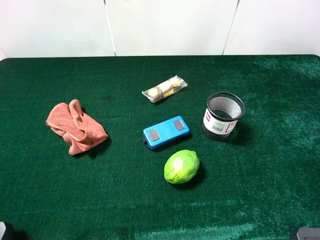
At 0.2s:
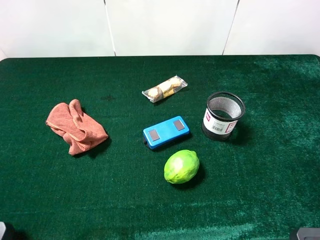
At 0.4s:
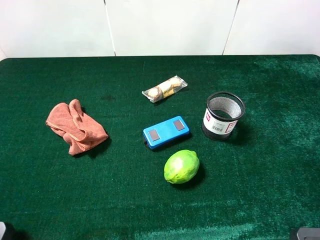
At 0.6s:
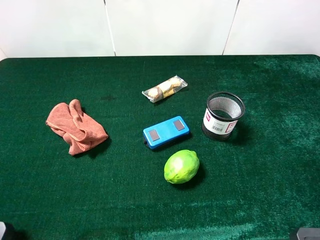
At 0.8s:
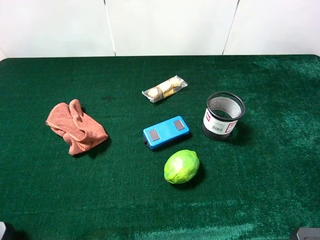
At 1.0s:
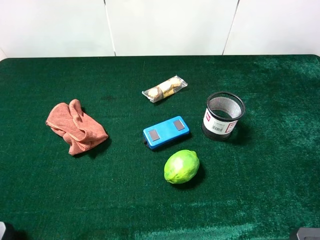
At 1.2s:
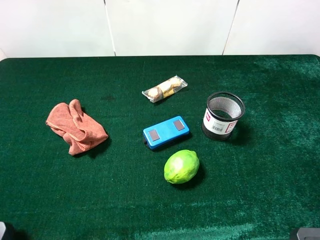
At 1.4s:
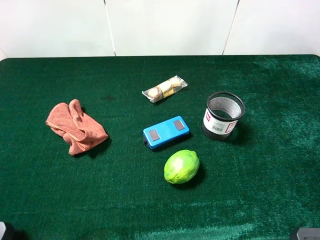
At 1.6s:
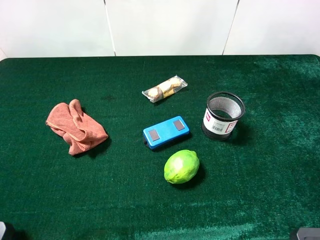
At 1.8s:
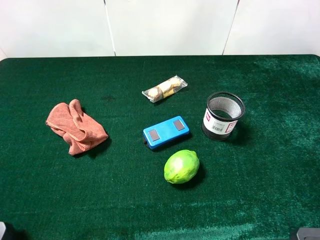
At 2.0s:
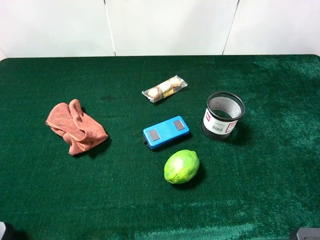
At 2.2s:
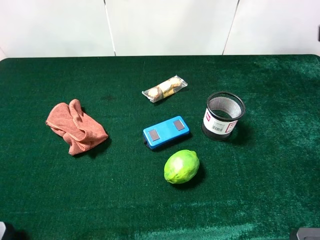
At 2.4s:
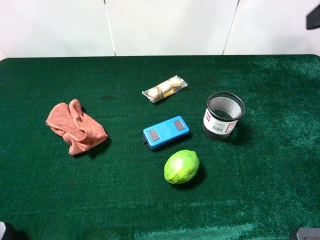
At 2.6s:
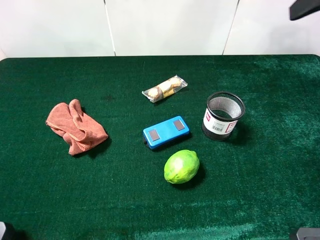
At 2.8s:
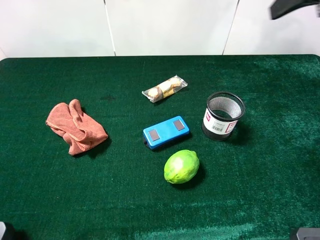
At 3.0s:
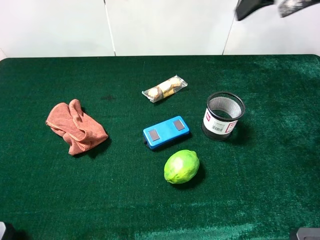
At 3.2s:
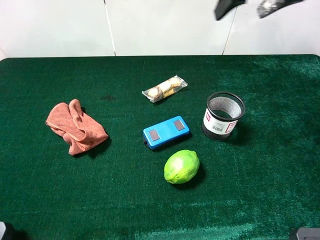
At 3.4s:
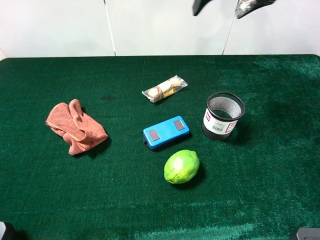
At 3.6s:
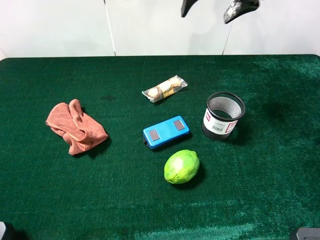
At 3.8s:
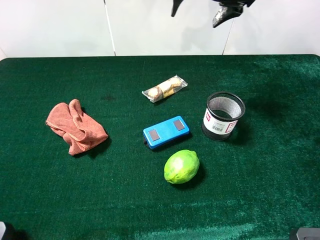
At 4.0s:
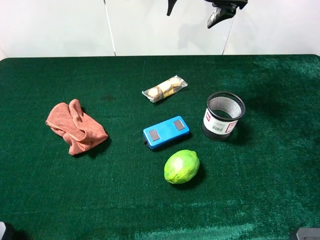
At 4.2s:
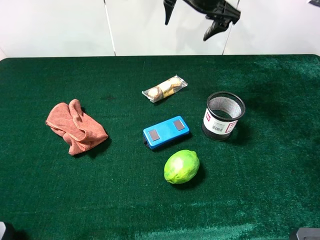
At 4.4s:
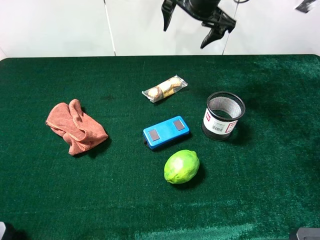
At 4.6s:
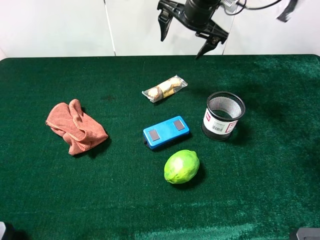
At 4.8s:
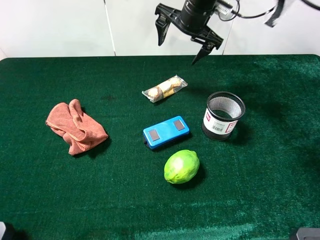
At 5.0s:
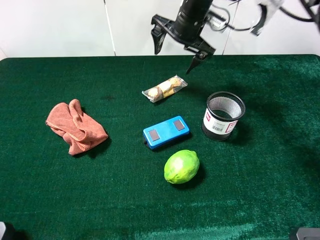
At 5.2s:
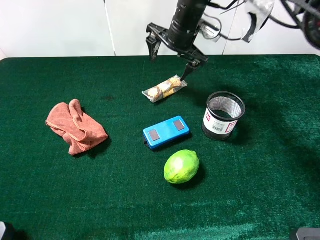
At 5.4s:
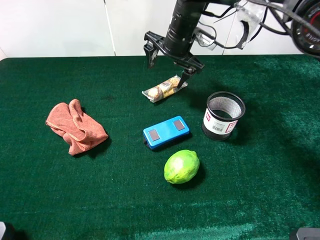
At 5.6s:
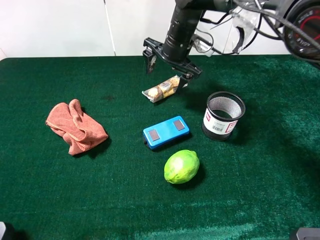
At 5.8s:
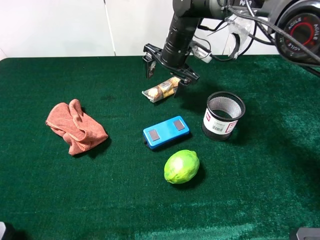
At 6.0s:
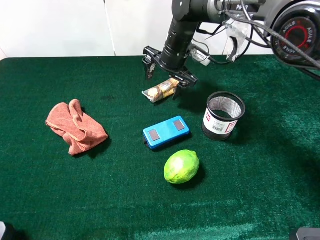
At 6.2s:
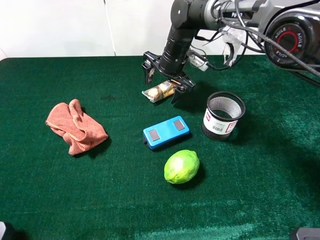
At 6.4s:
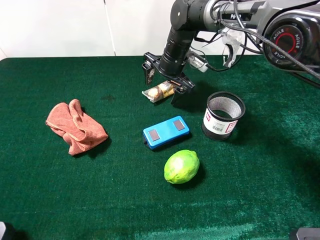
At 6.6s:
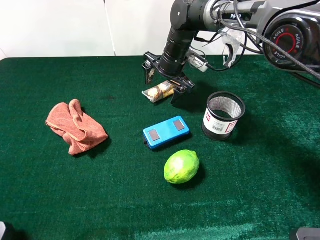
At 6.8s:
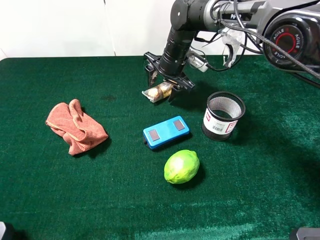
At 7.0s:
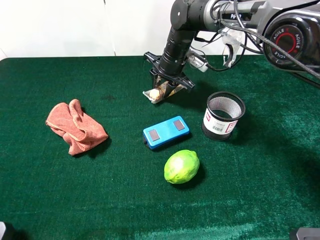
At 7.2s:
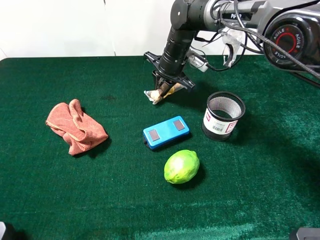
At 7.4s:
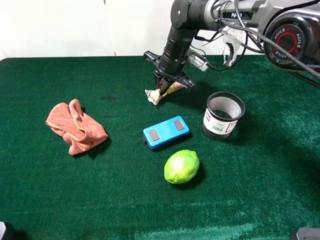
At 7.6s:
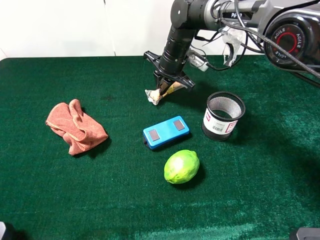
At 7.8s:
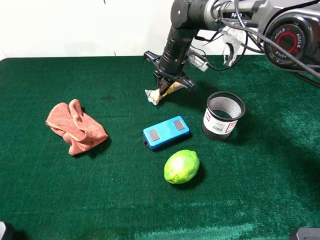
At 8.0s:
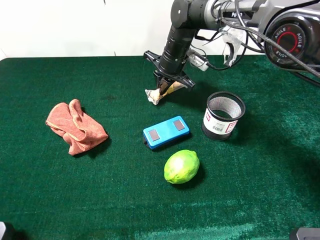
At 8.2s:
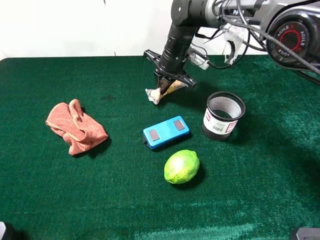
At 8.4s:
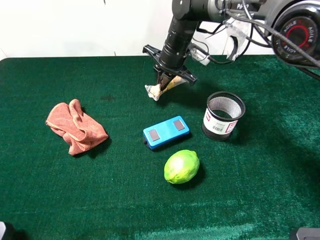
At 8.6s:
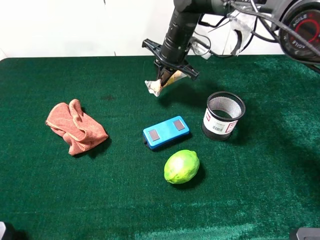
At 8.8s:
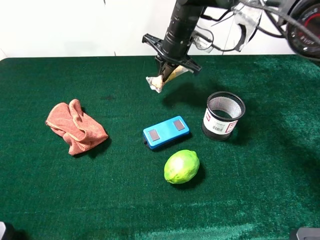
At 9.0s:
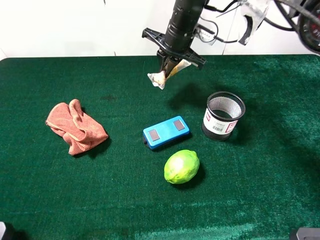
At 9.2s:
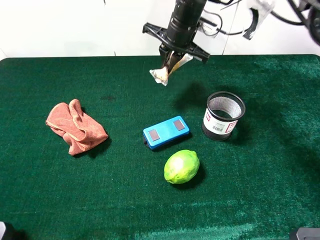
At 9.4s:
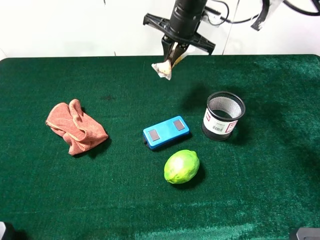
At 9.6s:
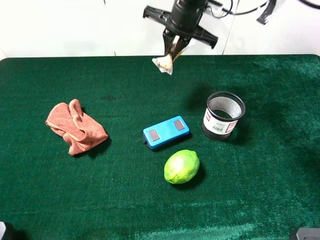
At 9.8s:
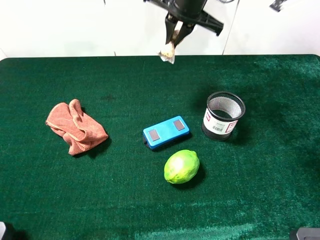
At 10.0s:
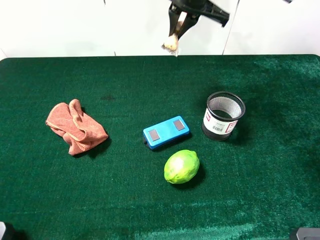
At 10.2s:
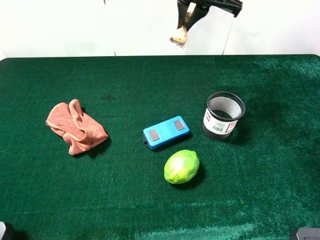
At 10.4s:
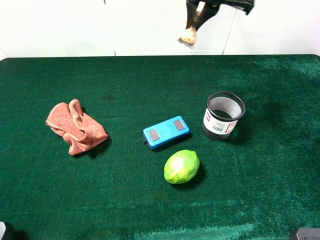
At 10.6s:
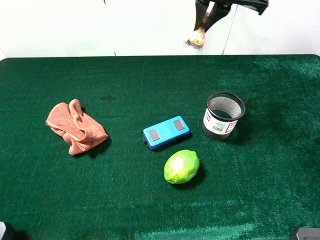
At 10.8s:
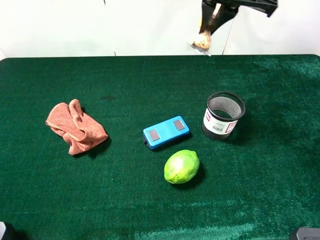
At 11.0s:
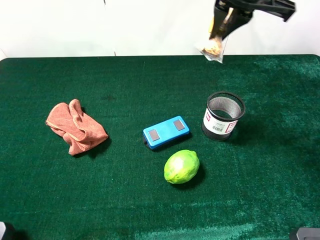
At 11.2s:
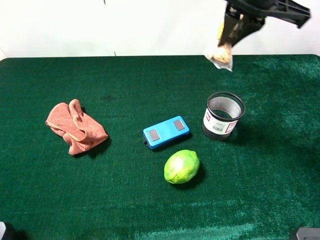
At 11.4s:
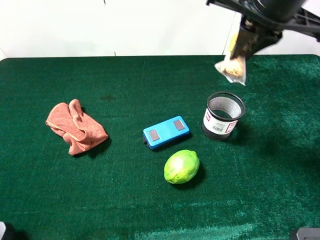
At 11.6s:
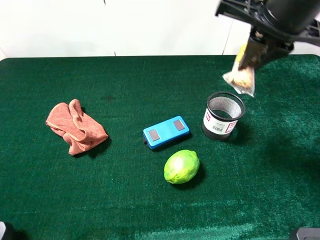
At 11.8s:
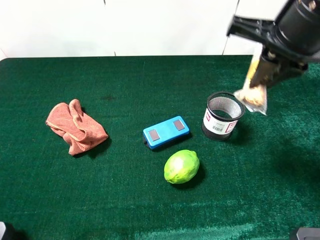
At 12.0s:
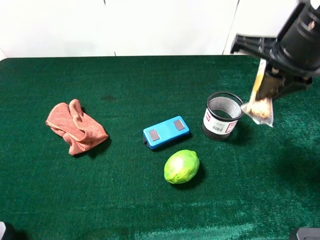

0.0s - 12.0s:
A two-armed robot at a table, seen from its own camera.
Task of the whole recording: the gripper move the object.
Step, 0.0s - 7.6s: Grasp the chocolate with the right gripper.
1.6s - 3.0s: The right gripper moves forward and to the left, roughly 25 cm.
3.0s - 4.4s: The right gripper heads to the left, forward and downward, covering some 20 cm.
4.4s - 6.0s: The right gripper goes about 15 cm downward.
6.0s - 7.6s: The right gripper closes.
7.6s - 9.0s: The right gripper shifts roughly 10 cm upward.
9.0s - 10.4s: The right gripper shifts roughly 15 cm upward.
10.4s - 12.0s: The right gripper goes about 15 cm backward and to the right.

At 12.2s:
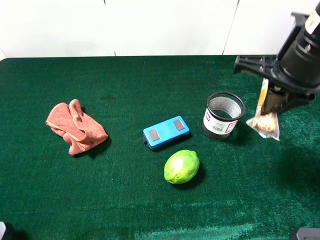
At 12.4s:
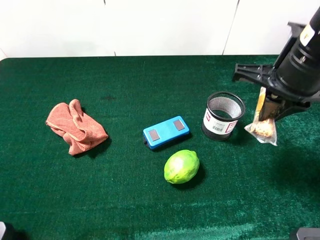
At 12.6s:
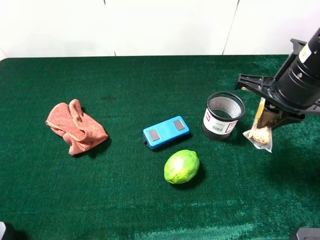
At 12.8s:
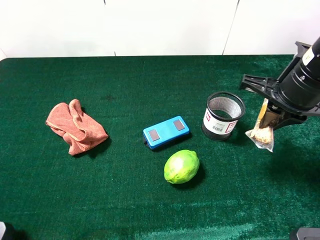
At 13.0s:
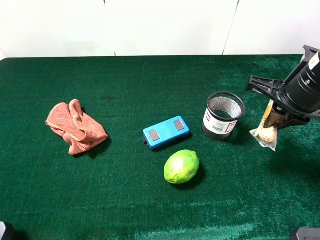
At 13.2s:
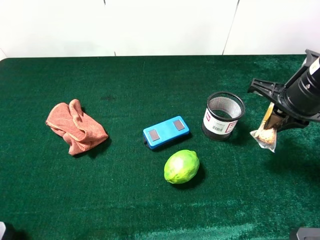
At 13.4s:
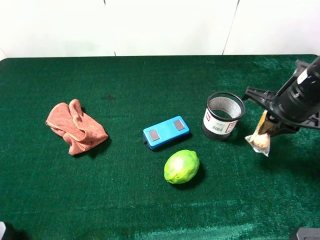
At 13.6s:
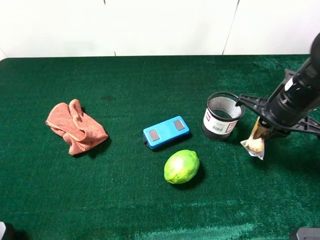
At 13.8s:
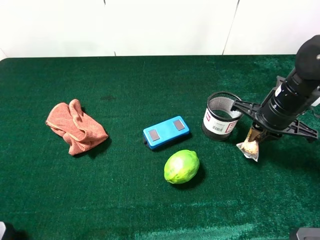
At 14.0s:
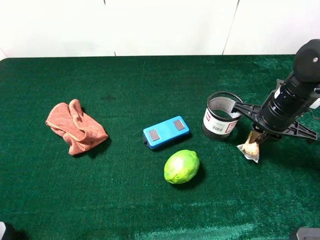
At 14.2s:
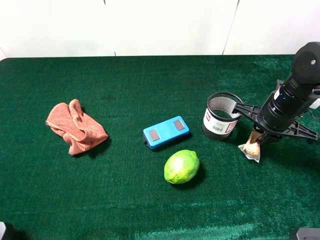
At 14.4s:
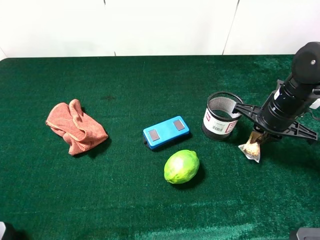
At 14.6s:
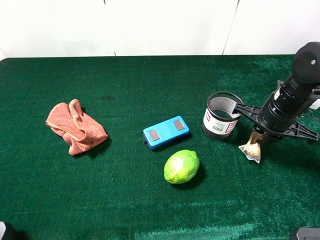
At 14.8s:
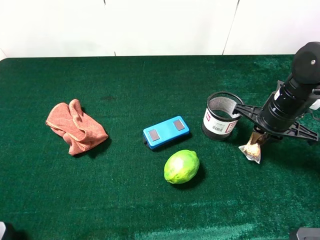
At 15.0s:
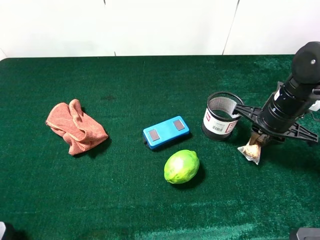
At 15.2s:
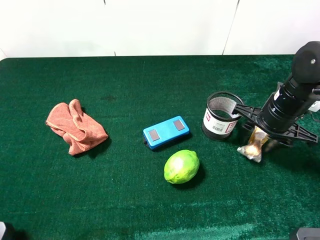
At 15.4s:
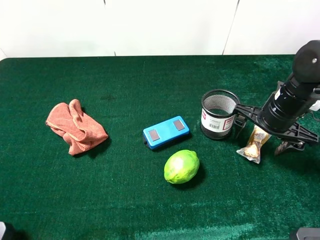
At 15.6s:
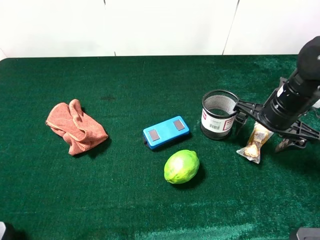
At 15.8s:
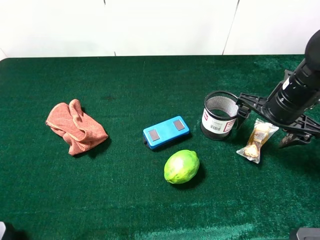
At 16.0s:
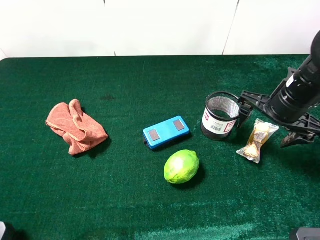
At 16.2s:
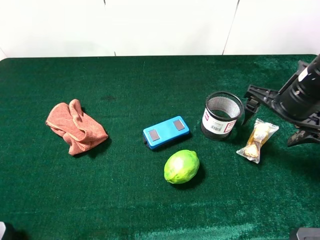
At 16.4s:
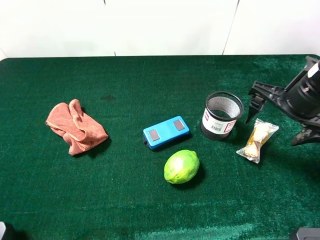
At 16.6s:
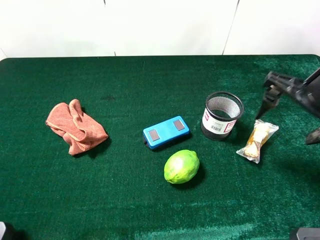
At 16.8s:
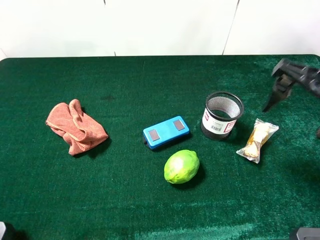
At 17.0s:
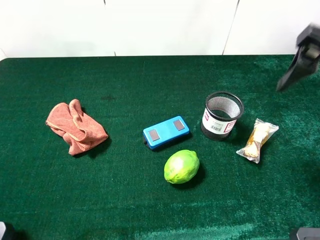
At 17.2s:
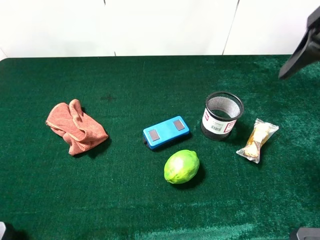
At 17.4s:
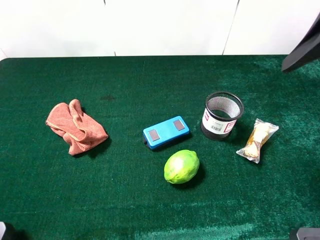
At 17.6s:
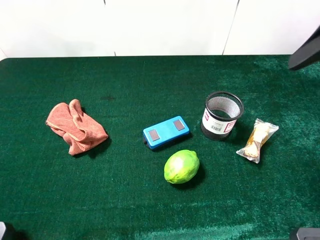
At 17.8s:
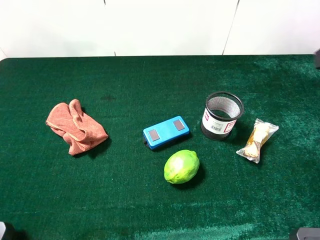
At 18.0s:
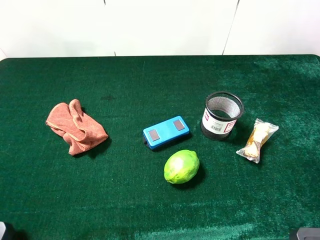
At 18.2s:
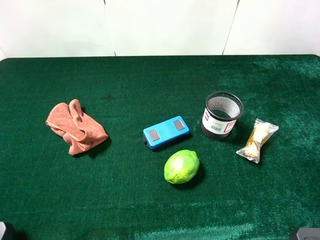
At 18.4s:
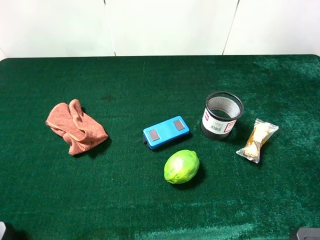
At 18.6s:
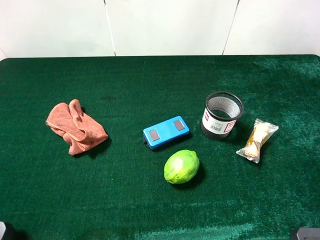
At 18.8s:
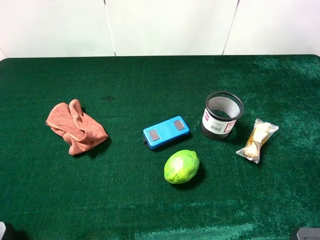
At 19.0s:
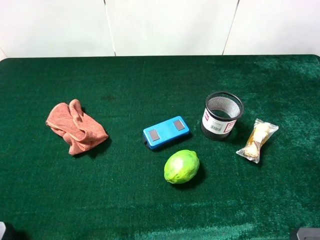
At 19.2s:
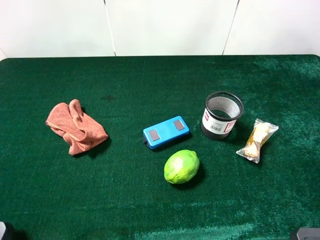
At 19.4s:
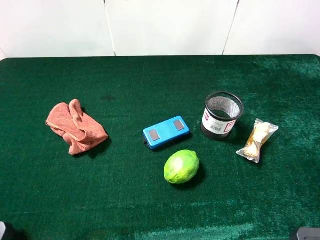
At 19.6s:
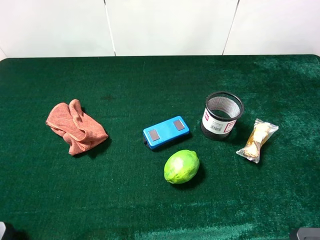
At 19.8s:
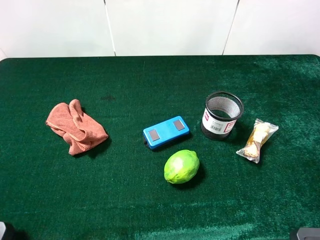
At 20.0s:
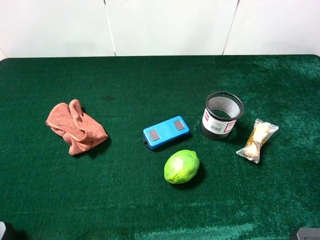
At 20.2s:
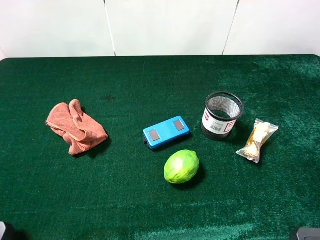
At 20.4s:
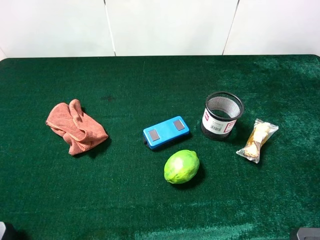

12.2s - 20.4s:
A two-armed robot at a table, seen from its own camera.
Task of the whole recording: the gripper move the object.
Step, 12.2s - 16.0s: Place the chocolate on the table with the right gripper.
12.2s - 13.8s: The right gripper shifts some 15 cm downward.
13.8s - 15.4s: The right gripper opens.
15.4s - 17.2s: The right gripper shifts roughly 20 cm upward.
17.2s - 18.8s: The right gripper is displaced backward by roughly 20 cm.

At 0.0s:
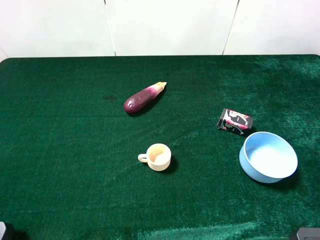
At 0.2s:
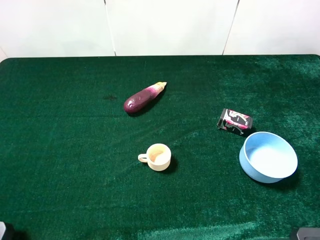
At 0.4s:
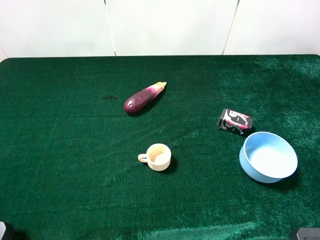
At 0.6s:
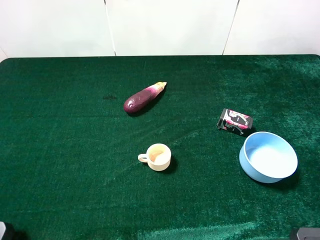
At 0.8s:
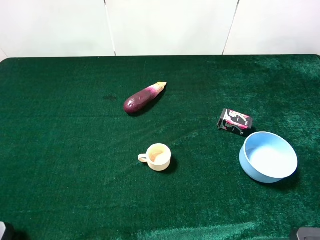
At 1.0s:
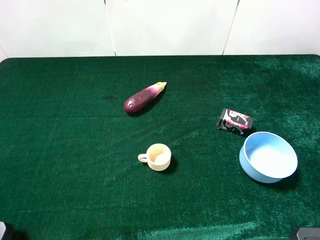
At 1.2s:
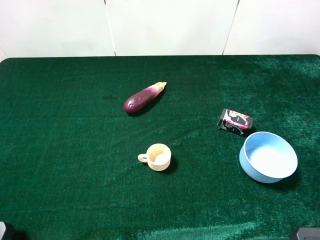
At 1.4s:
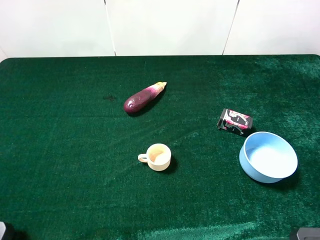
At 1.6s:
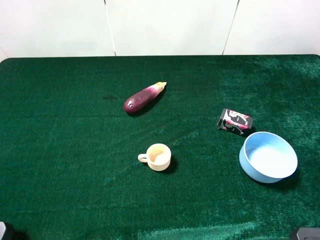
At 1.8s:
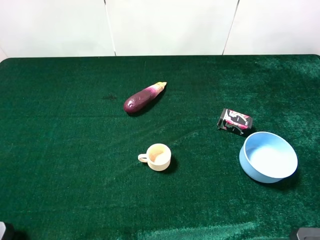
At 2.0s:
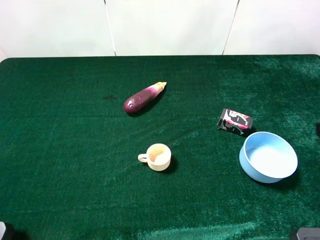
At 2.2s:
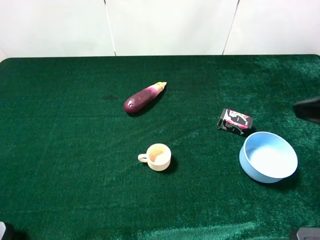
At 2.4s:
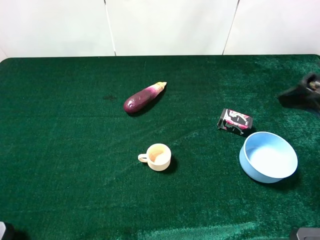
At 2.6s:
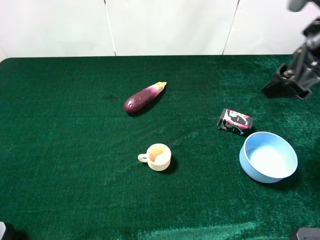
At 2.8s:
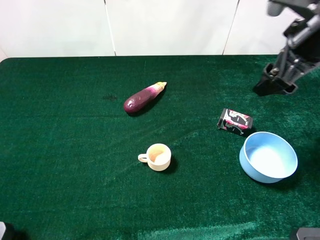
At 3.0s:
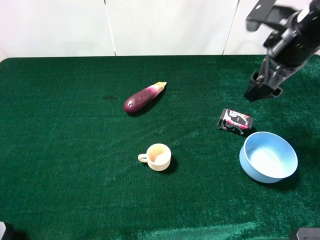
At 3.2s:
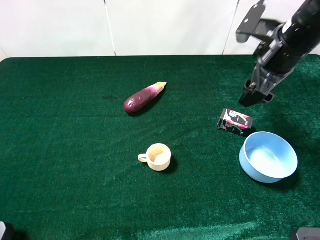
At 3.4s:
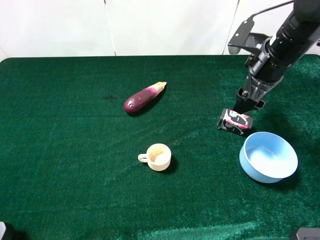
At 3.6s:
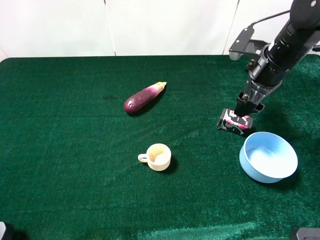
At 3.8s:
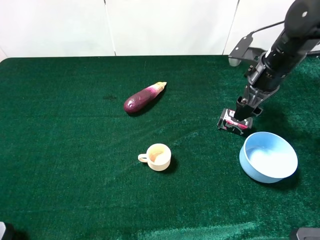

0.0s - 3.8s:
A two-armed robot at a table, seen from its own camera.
Task of the whole recording: the gripper move the object.
0.0s - 1.2s: Both grippers stay put.
1.2s - 2.6s: The right gripper travels forward by some 25 cm.
2.6s - 3.8s: The right gripper goes roughly 15 cm downward and forward.
